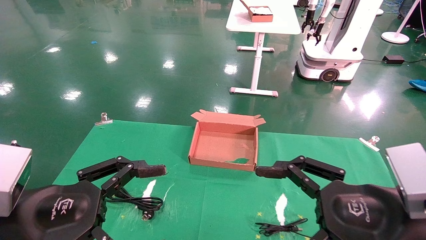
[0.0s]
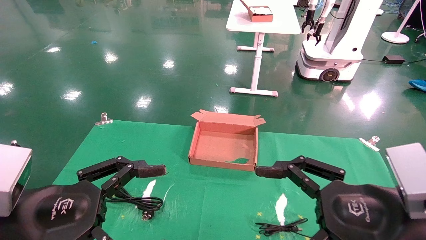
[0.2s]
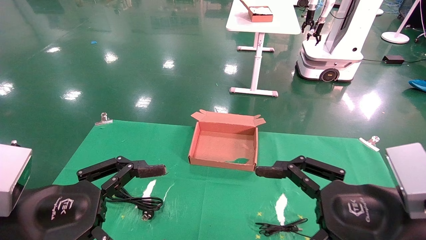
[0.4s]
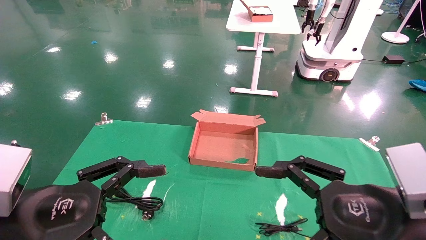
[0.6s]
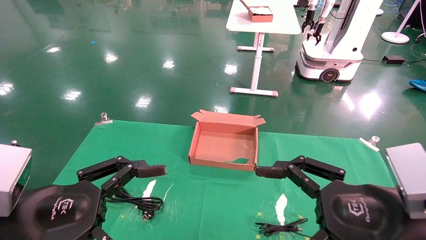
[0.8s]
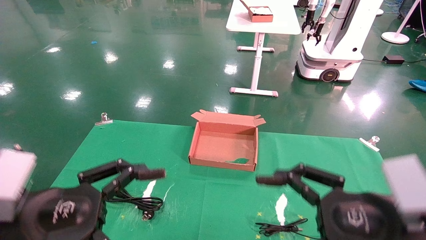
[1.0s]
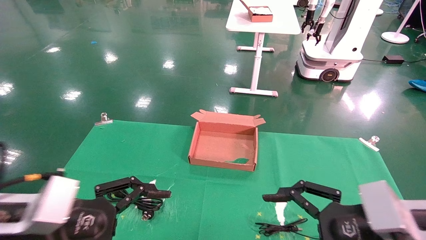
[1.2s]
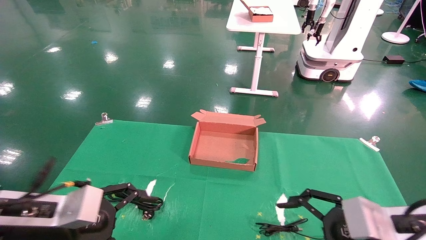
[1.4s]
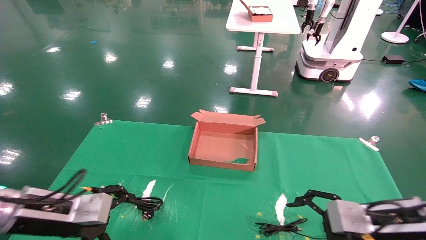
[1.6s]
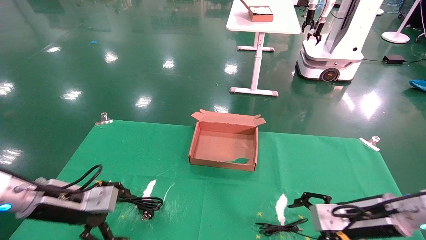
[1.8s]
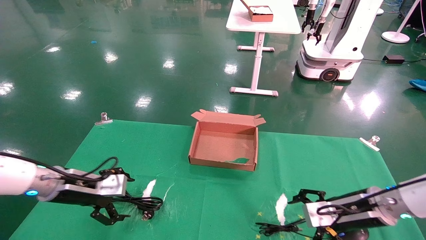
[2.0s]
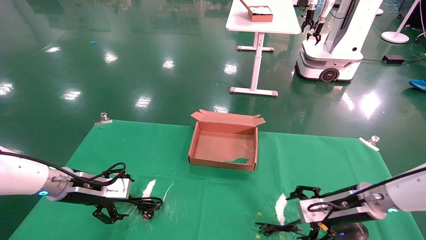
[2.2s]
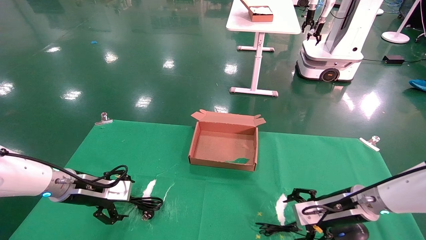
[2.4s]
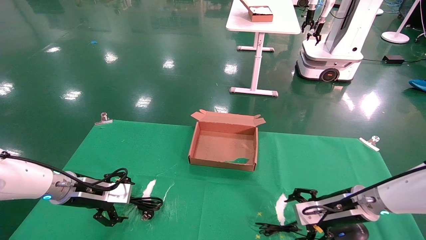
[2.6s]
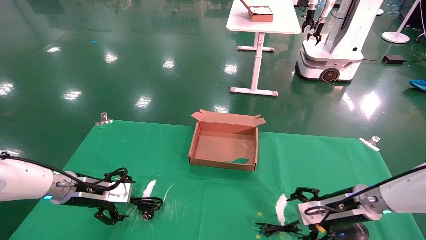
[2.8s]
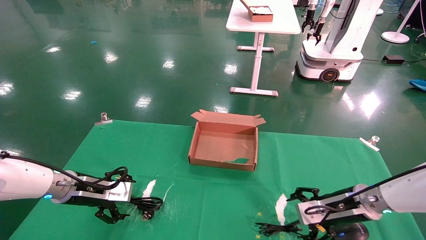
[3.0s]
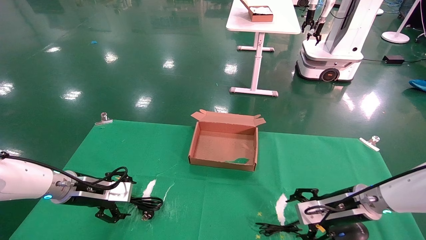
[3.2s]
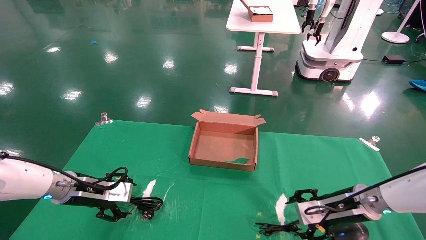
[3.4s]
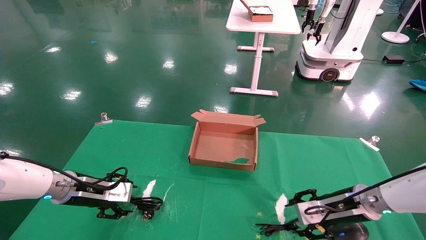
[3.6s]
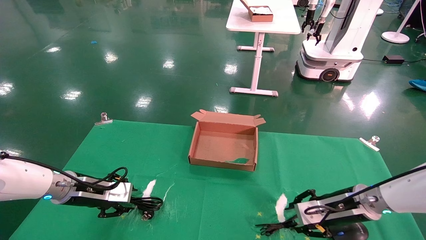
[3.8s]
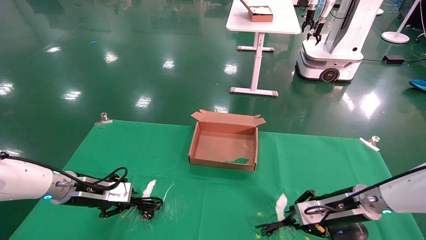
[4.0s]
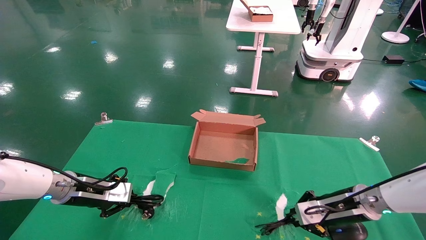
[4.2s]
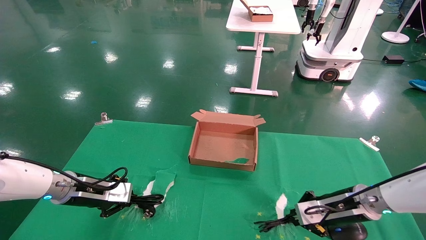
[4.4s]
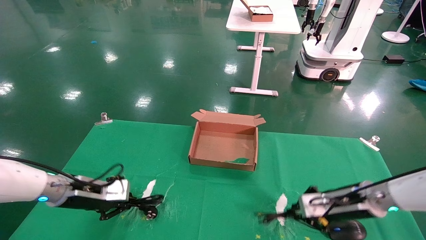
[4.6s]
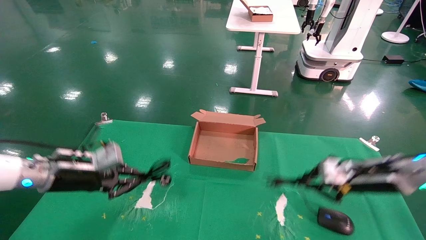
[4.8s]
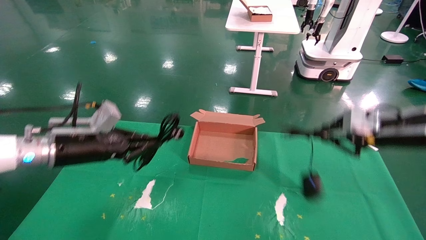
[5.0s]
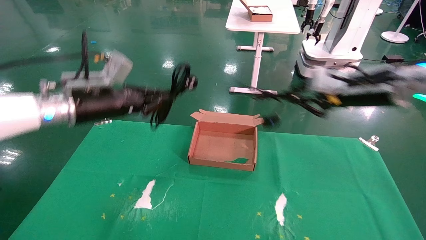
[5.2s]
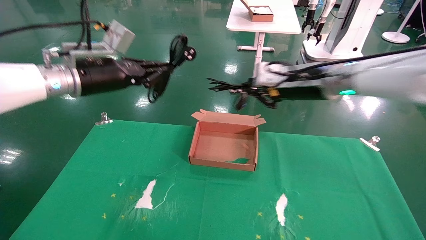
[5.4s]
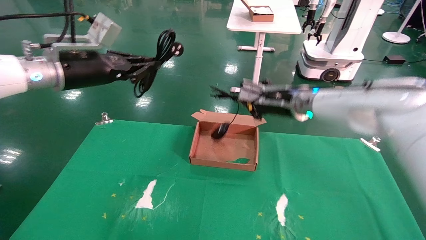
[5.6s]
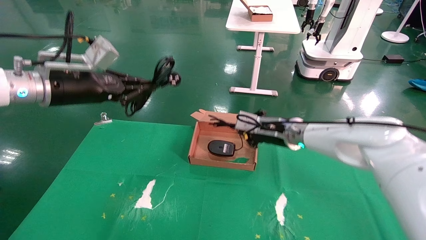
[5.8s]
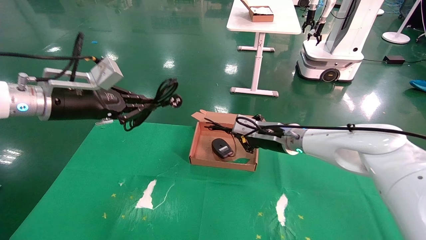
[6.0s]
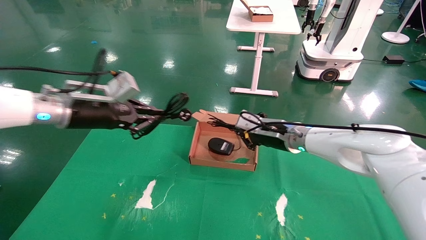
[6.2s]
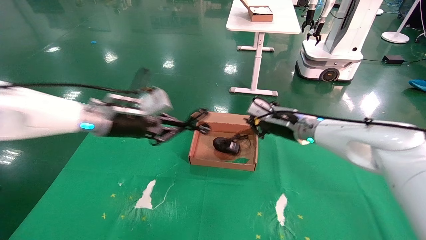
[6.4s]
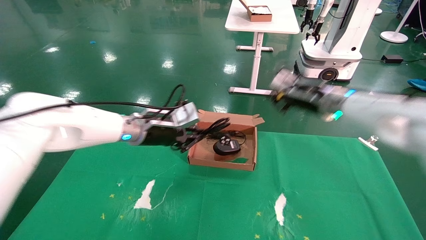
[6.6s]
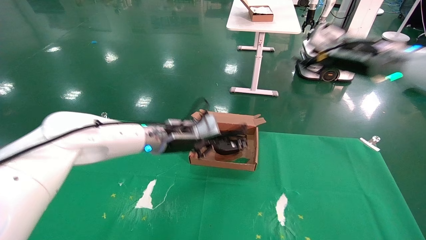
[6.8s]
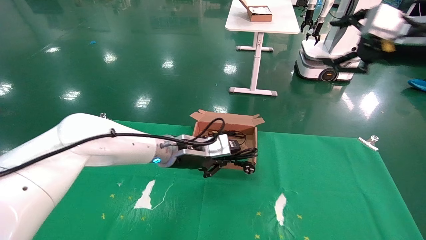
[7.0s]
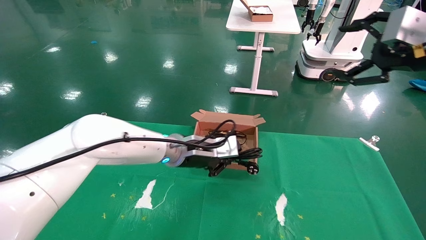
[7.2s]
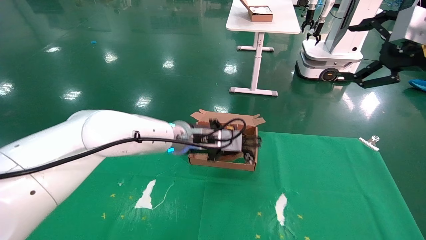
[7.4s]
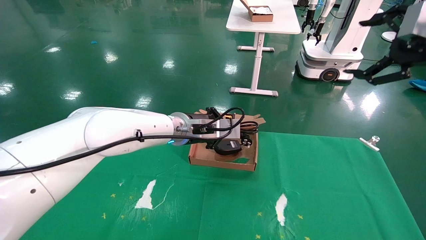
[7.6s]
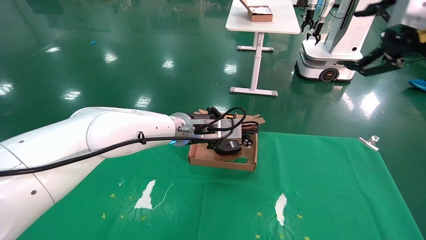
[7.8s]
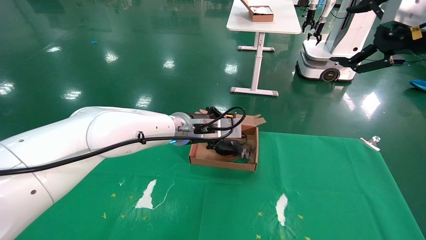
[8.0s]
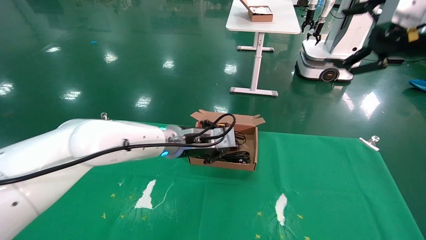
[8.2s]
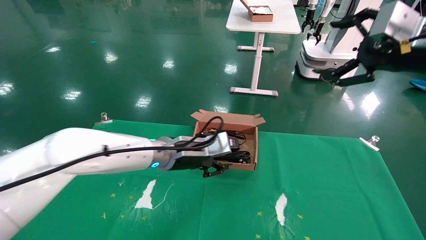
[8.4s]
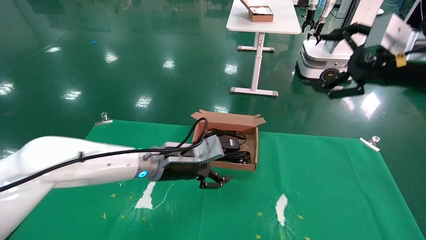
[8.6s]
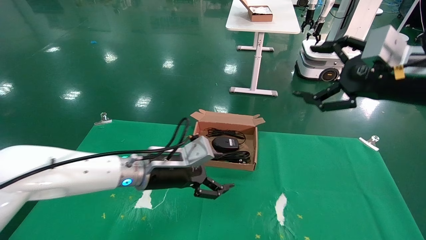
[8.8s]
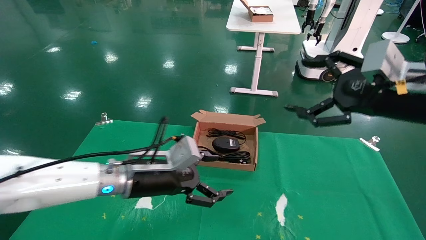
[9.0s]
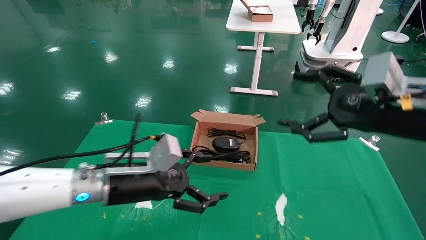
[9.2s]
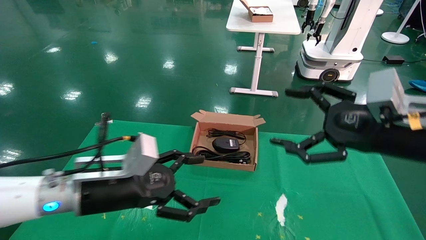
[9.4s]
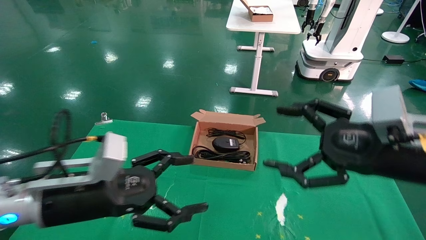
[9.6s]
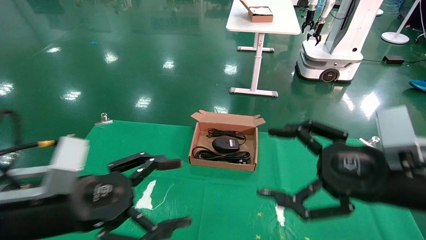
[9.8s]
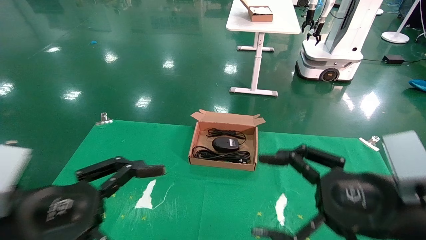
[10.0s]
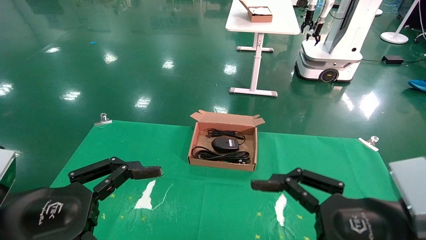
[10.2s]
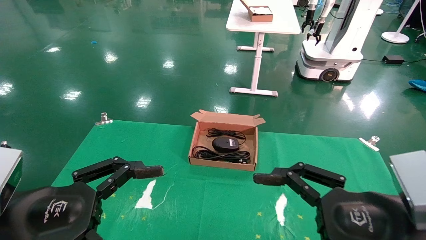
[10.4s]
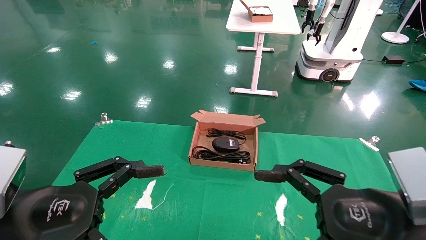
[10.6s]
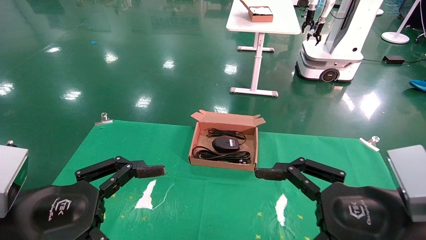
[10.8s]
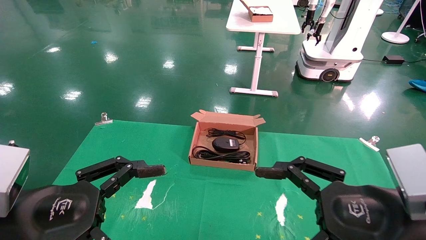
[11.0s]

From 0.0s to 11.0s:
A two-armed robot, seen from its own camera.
Step, from 1.2s to 4.4s: Grab and lift both the mouse and power cord from the accessory packaging area at the same time.
Step, from 4.6s to 8.2s: Place the mouse and power cord into the box.
From 0.0s to 1.6s: The two grippers go some 15 cm forward and downward.
From 1.6s to 3.2s: Both grippers travel together forward, about 10 cm.
From 3.2s to 4.8s: The right gripper shifts about 10 cm upward, and closes up; the left gripper goes about 5 cm upward, and closes its fingers.
From 4.8s to 6.2s: The left gripper heads upward and to the right, covering some 15 cm, while the right gripper heads to the left and forward, covering some 20 cm.
From 6.2s to 7.8s: The right gripper heads to the right, upward and backward, covering approximately 35 cm, and opens up; the left gripper shifts roughly 20 cm to the right.
From 7.8s to 9.4s: The left gripper is displaced backward and to the left by about 20 cm, and opens its fingers. The right gripper moves downward and to the left, some 15 cm.
From 9.4s to 11.0s: The right gripper is displaced backward and downward by about 10 cm. Meanwhile the left gripper is displaced backward and to the left by some 15 cm.

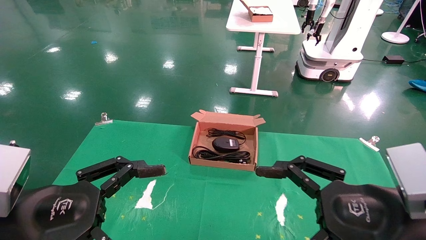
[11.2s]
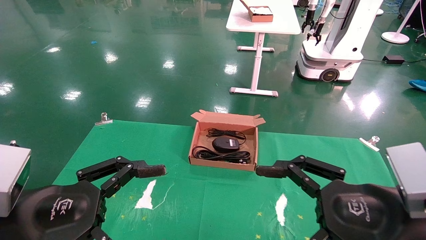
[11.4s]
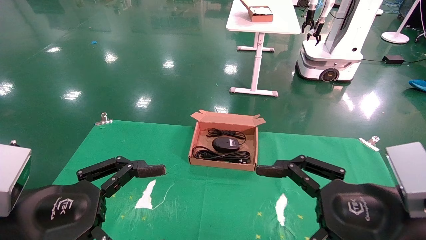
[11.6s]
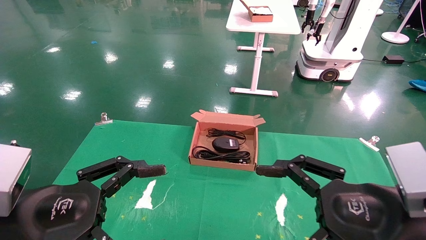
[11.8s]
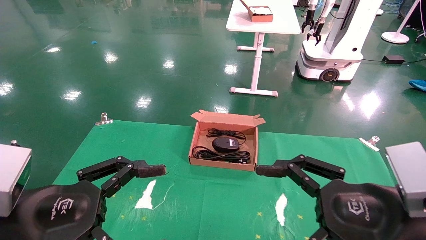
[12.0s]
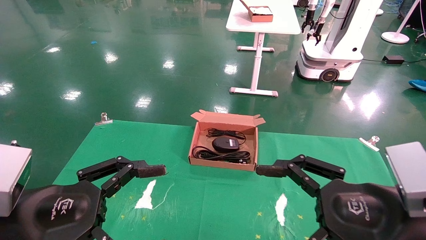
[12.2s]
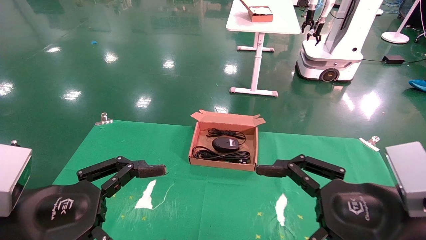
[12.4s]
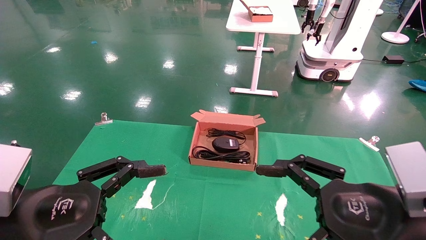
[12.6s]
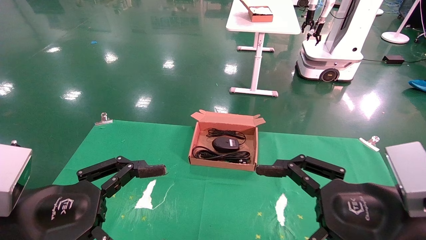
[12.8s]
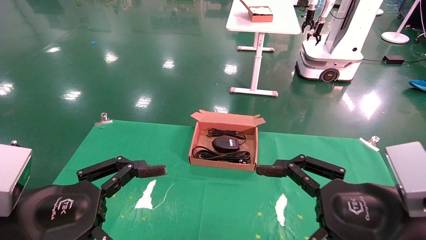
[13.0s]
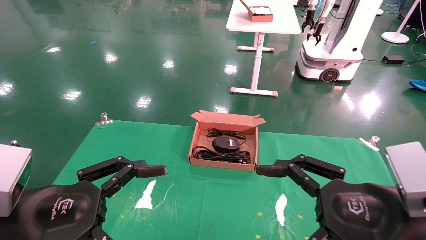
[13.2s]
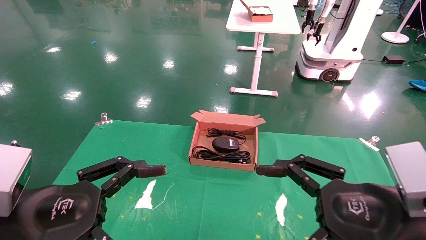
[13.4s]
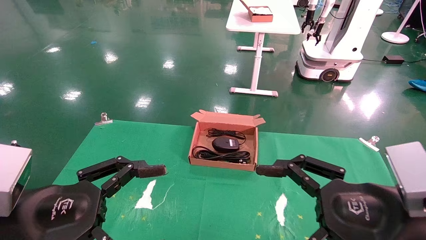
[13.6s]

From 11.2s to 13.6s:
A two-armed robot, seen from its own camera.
From 11.2s to 13.6s: Neither gripper changes place.
